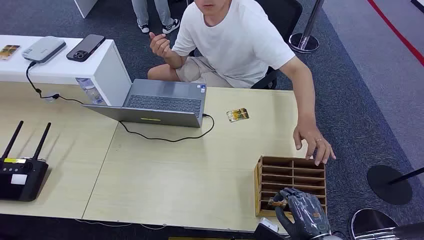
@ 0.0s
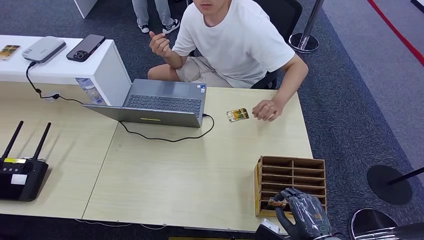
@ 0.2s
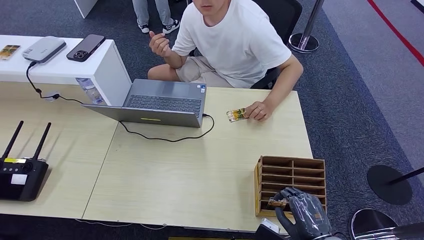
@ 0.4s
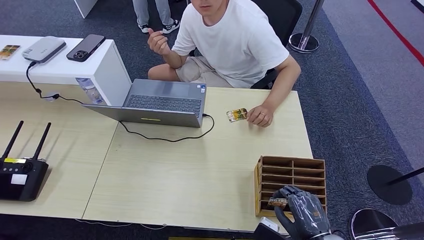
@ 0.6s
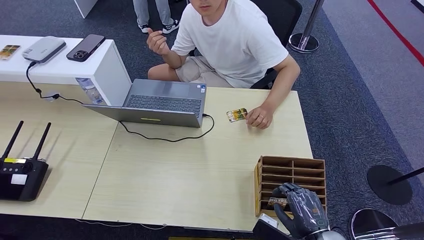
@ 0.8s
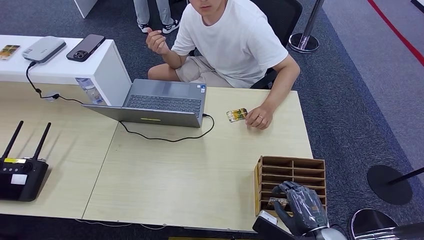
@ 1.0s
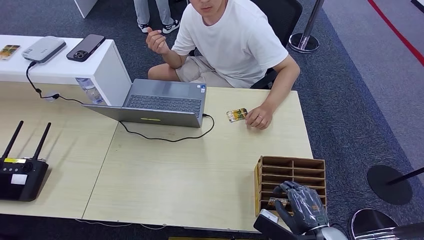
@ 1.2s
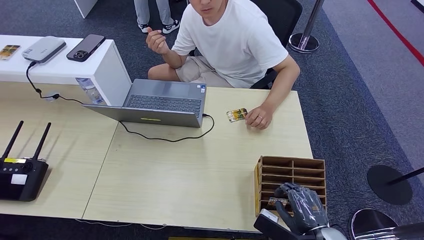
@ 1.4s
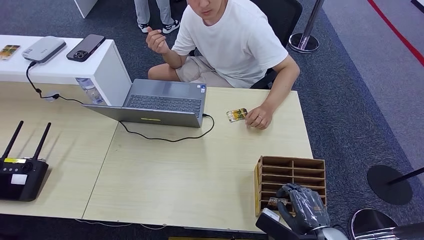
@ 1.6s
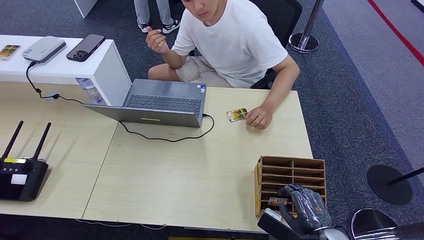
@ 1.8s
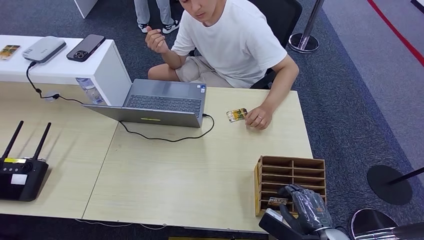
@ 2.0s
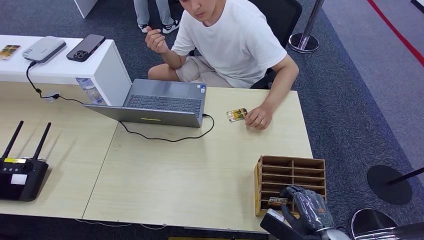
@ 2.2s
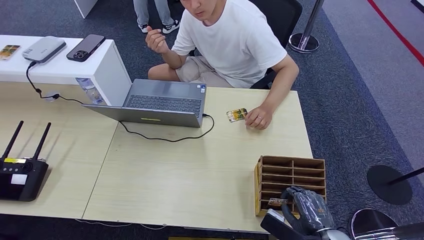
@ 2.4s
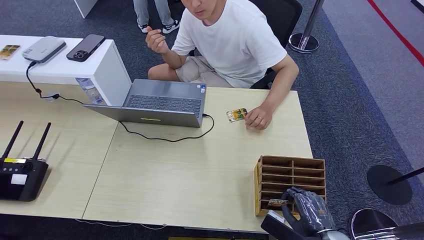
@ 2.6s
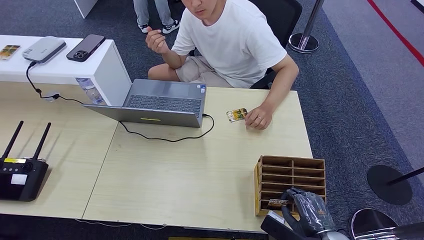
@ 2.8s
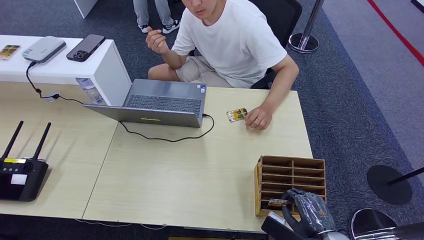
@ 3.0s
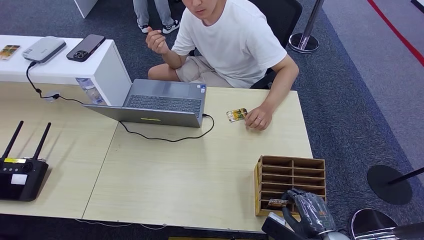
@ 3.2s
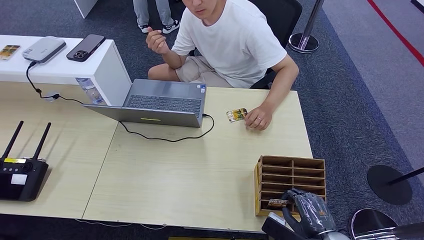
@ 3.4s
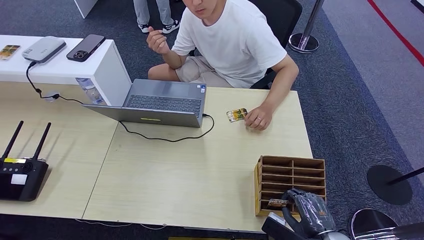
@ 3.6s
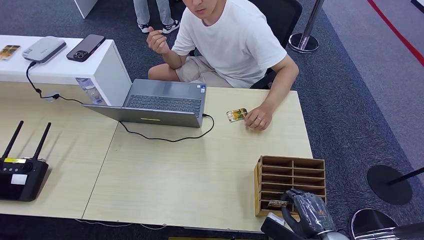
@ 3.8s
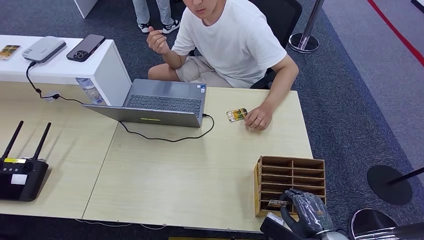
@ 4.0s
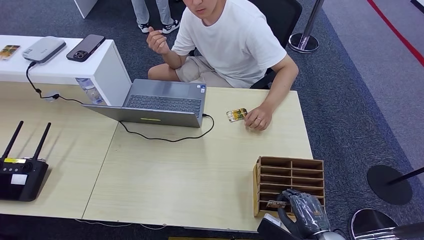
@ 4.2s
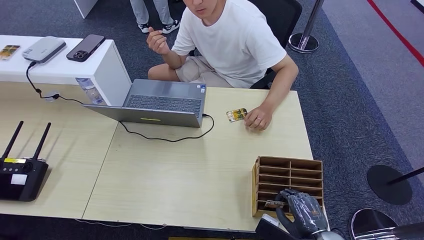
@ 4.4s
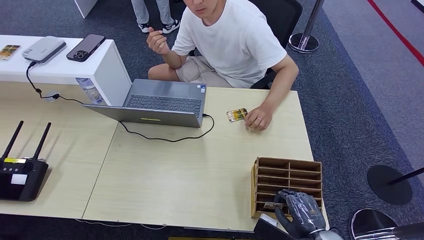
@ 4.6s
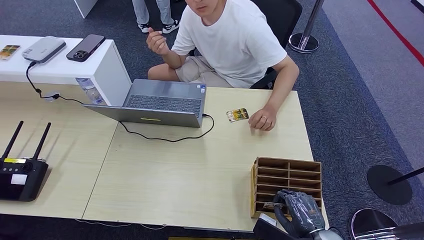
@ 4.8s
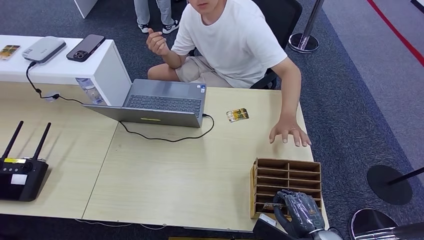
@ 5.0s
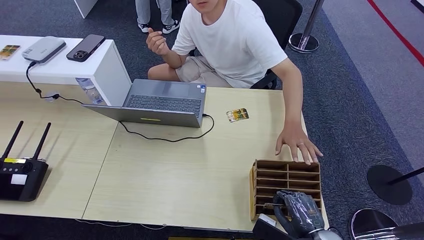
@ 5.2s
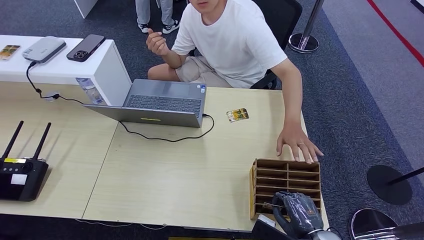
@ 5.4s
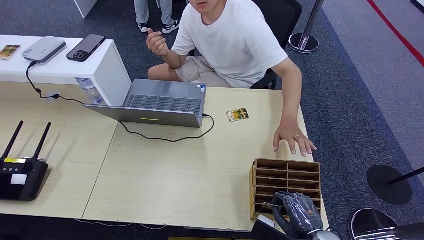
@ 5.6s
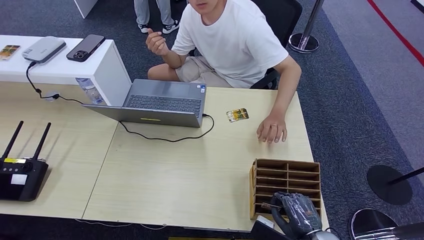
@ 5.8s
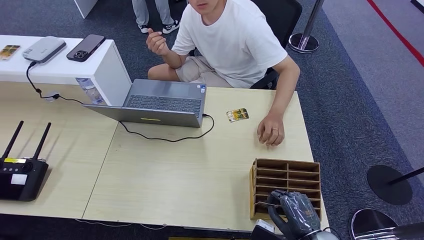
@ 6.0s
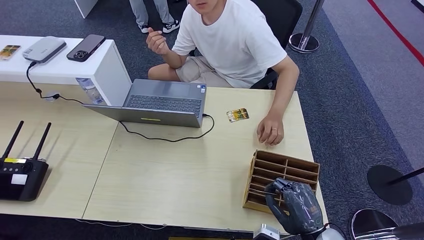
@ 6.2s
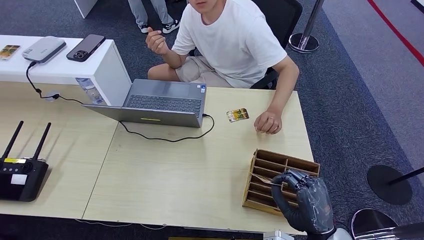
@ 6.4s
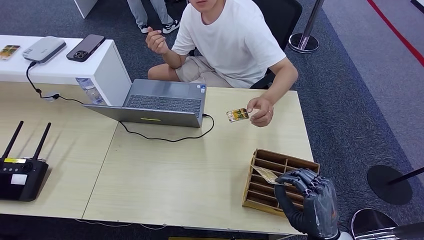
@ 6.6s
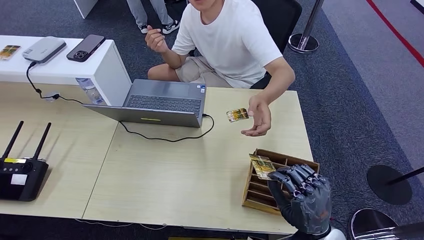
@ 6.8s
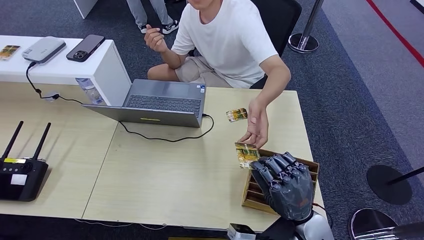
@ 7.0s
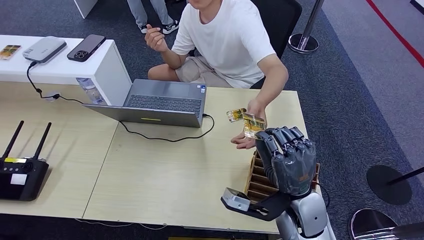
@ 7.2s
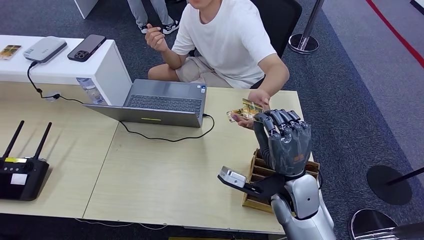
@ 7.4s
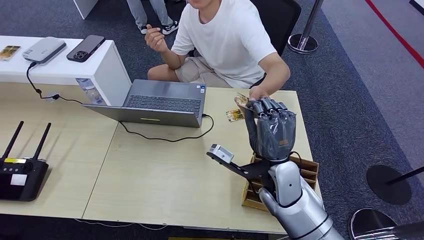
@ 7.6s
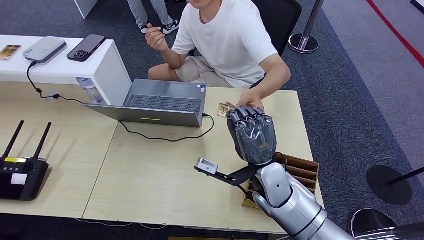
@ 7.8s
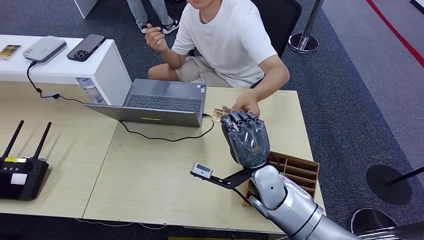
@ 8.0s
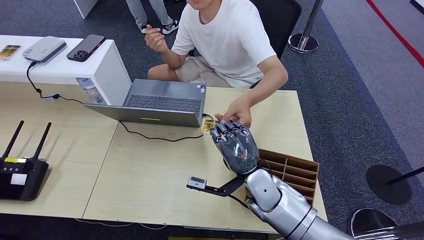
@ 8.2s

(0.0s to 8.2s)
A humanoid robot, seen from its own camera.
Step, 0.0s - 5.8s: Pick up the room card from the card holder.
Step, 6.0s - 8.2s: Hand the room card to the target.
1.6s - 5.0s: There are only small adjustments of the hands.
5.0s - 6.6s: The right hand ends up about 5 cm from where it was.
6.6s - 8.2s: The right hand travels forward and to the left by some 20 cm.
